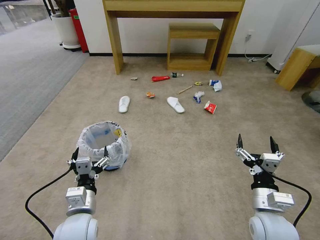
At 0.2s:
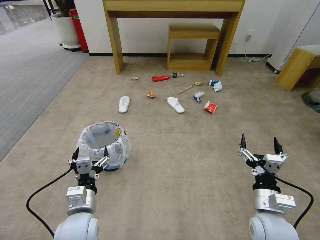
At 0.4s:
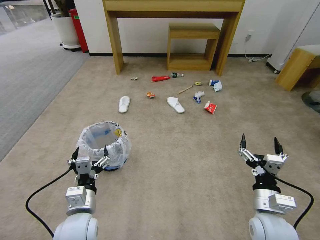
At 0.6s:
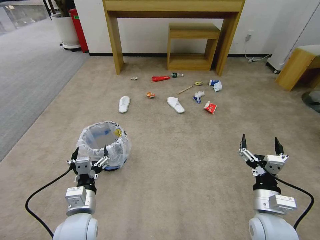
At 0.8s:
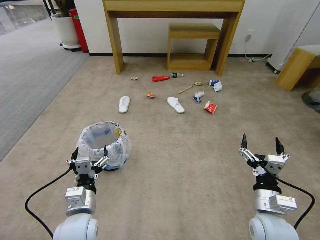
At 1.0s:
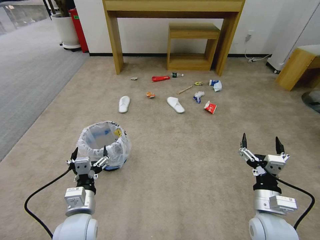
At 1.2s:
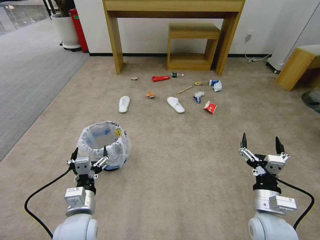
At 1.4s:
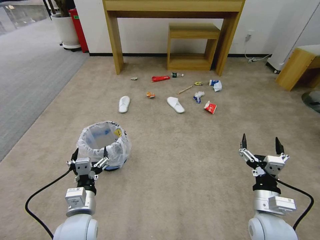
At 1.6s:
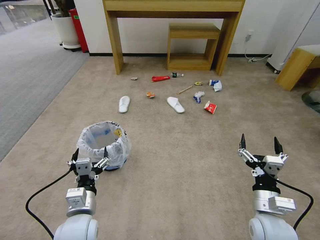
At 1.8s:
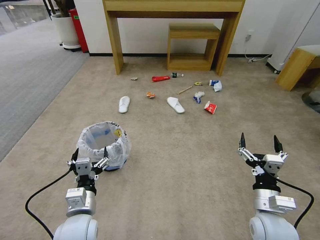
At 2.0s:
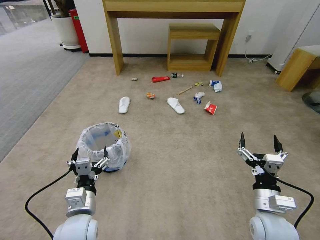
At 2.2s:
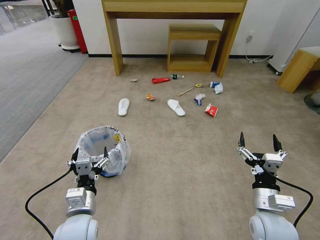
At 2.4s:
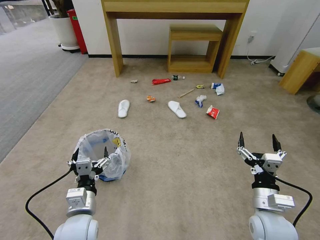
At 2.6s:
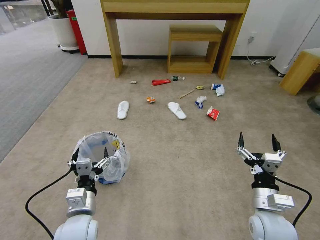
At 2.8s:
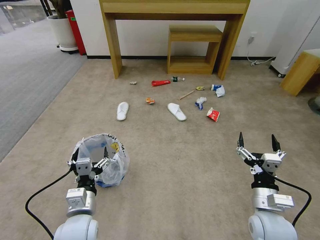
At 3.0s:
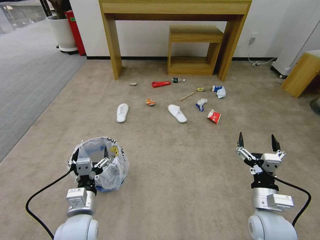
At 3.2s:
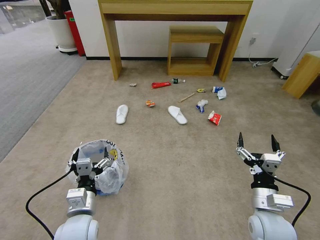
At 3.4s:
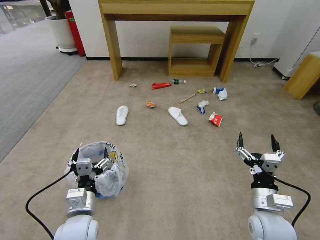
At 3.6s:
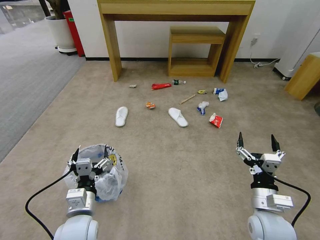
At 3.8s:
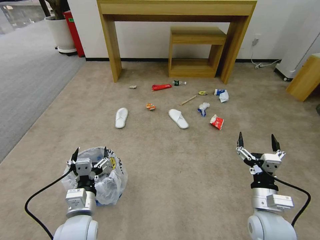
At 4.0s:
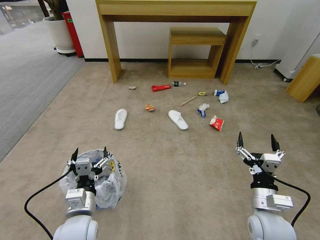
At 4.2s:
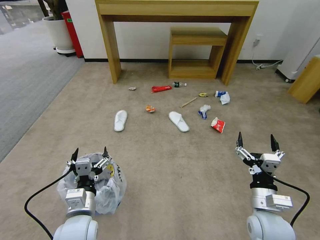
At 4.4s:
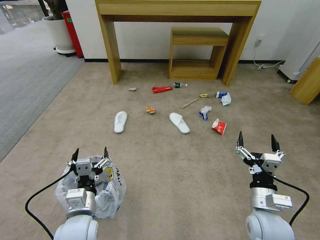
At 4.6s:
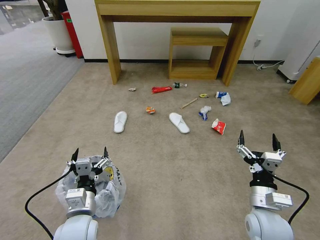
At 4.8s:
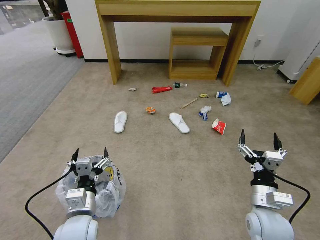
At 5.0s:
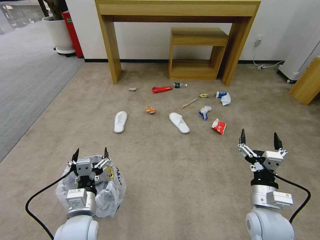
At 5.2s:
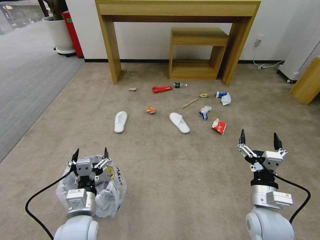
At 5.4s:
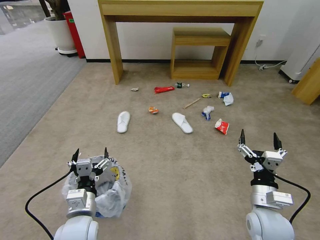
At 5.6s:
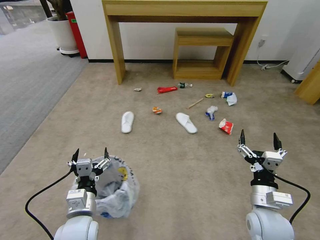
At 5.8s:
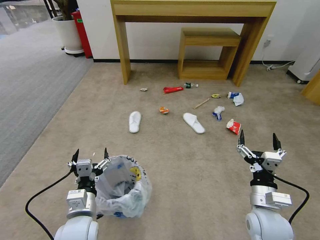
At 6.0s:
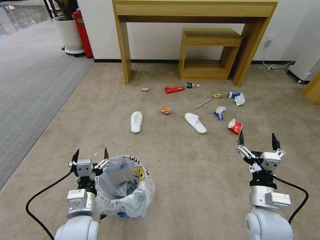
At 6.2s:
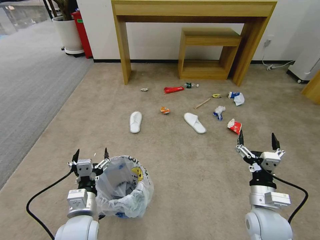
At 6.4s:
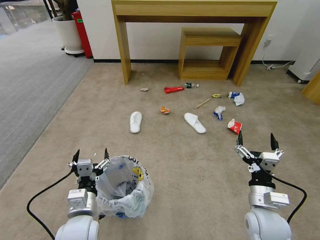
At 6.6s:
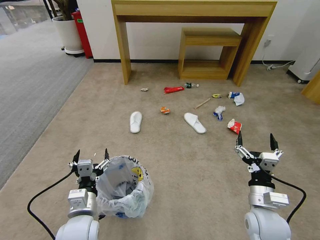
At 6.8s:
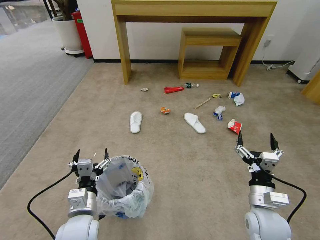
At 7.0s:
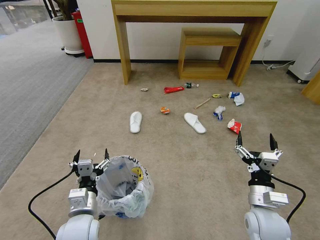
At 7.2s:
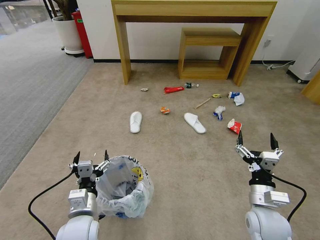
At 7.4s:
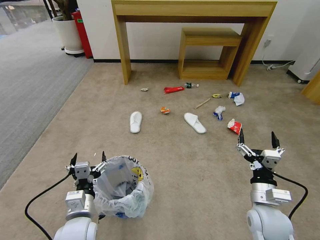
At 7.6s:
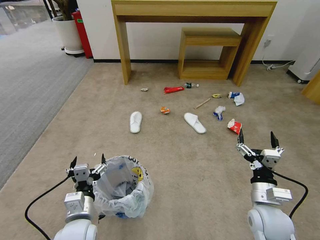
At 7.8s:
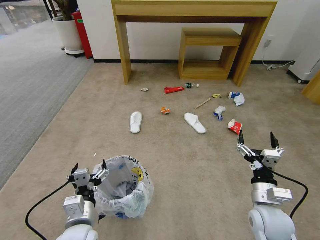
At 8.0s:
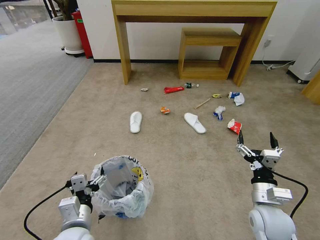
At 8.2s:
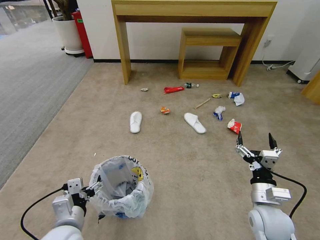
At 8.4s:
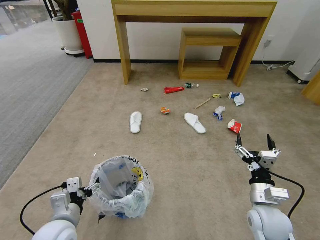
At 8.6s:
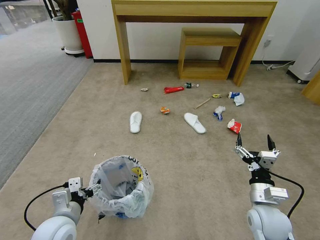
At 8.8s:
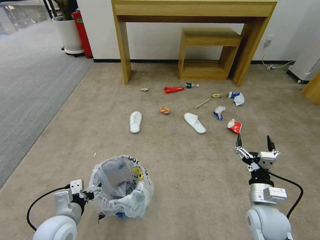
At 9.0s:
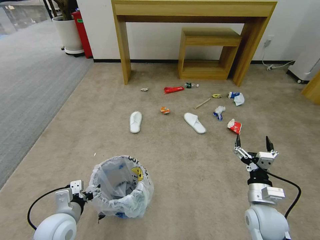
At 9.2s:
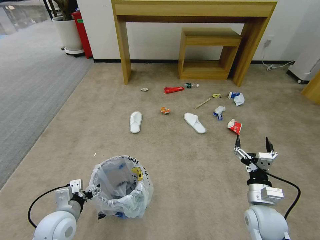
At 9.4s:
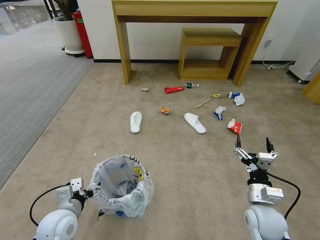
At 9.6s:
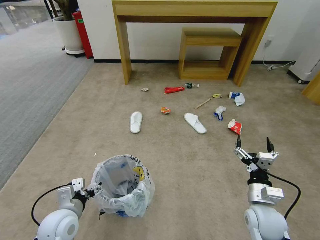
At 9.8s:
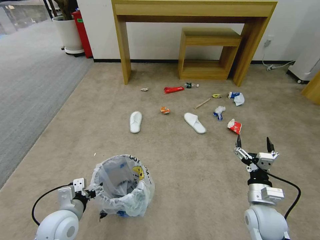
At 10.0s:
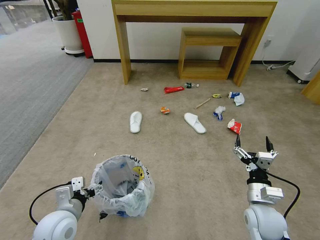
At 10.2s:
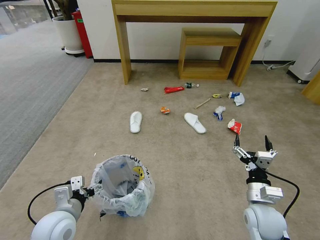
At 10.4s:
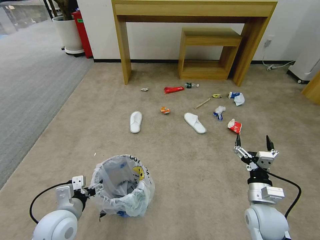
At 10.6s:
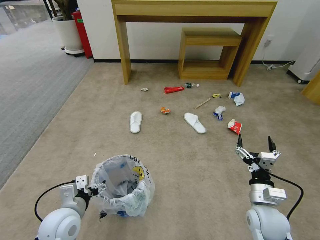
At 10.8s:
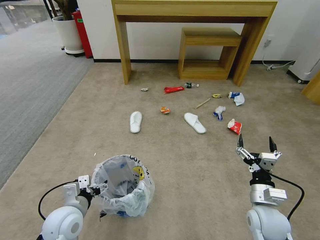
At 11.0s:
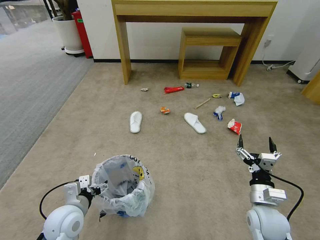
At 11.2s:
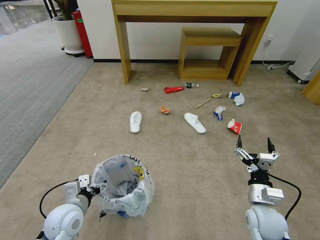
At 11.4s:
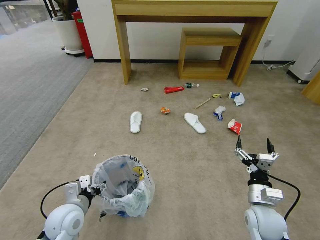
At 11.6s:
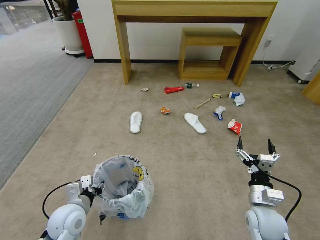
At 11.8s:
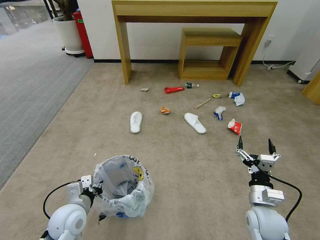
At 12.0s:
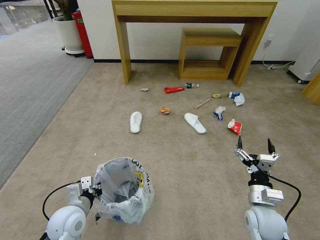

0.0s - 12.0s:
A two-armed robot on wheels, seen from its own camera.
Task of the whole recording: Pick up the trash bin and place the garbage on the floor into it.
1.6s - 4.4s: The two grippers keep their place.
4.4s - 6.0s: The two grippers keep their place.
6.0s - 7.6s: The grippers stay close to where they were, moving slightly.
7.6s - 9.0s: The left gripper is displaced to the left by roughly 5 cm.
9.0s - 10.4s: There are only small adjustments of the grippers.
10.4s - 12.0s: The left gripper closes.

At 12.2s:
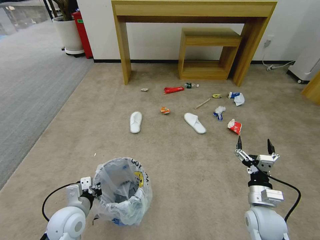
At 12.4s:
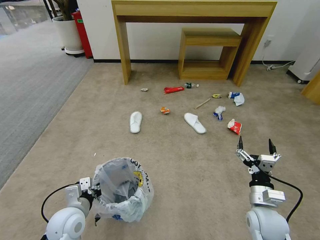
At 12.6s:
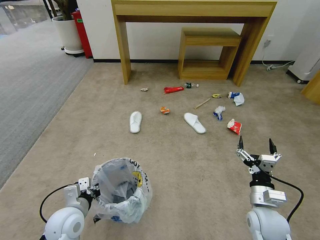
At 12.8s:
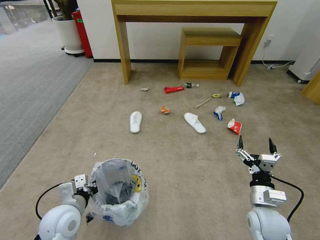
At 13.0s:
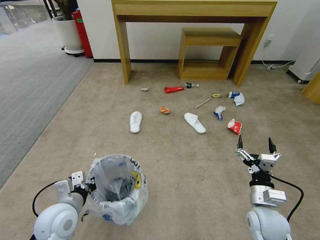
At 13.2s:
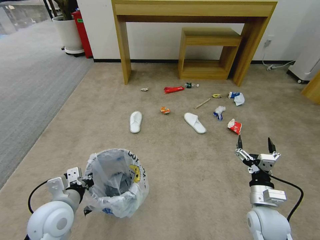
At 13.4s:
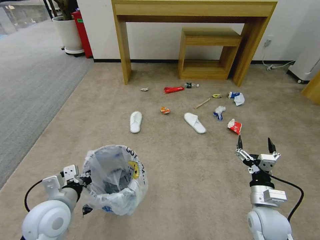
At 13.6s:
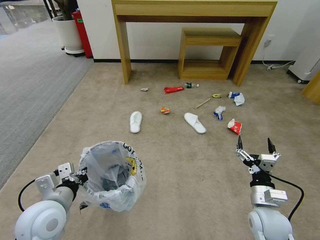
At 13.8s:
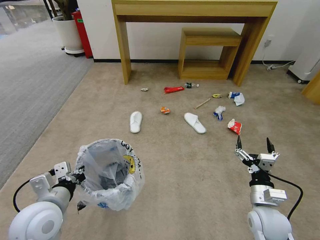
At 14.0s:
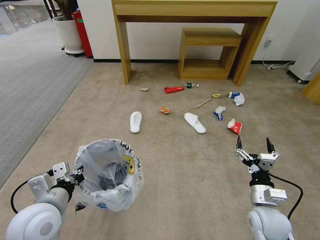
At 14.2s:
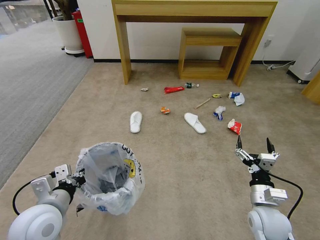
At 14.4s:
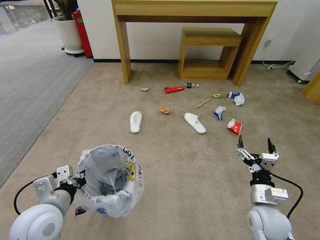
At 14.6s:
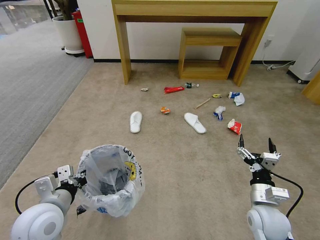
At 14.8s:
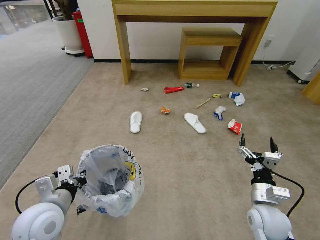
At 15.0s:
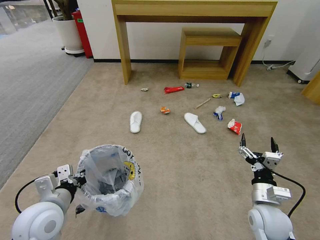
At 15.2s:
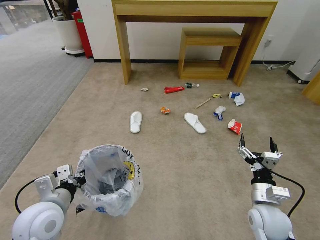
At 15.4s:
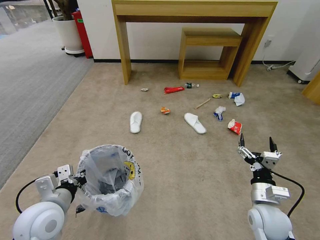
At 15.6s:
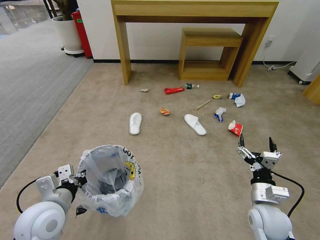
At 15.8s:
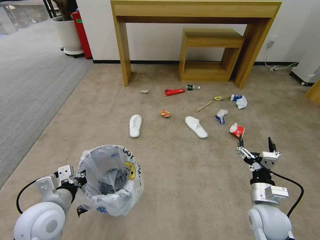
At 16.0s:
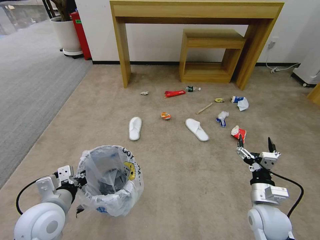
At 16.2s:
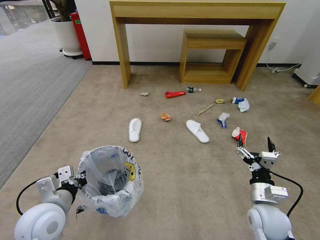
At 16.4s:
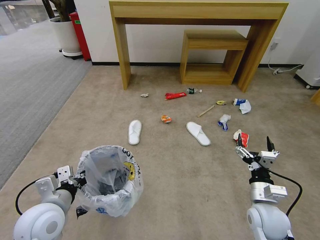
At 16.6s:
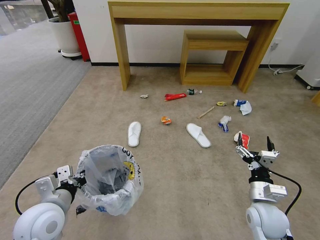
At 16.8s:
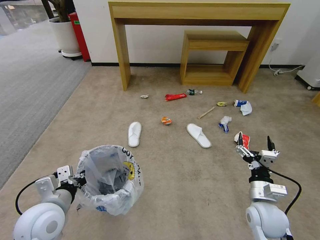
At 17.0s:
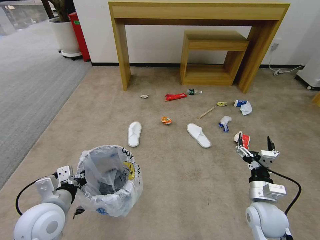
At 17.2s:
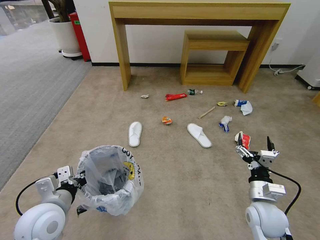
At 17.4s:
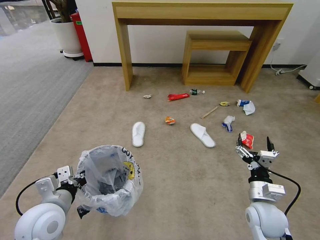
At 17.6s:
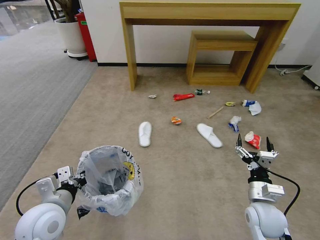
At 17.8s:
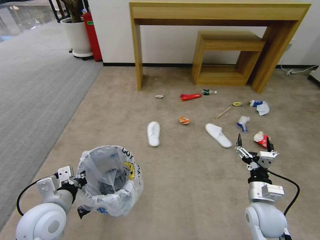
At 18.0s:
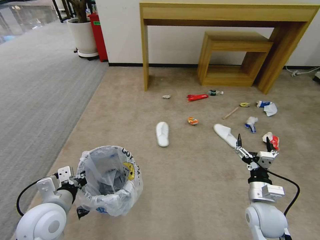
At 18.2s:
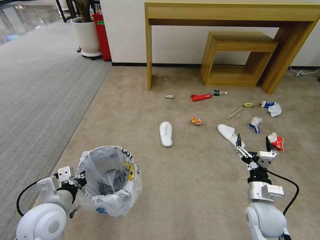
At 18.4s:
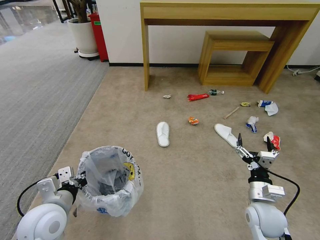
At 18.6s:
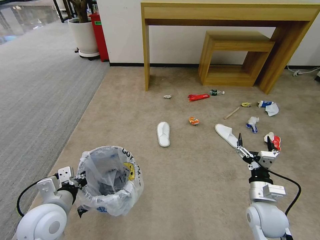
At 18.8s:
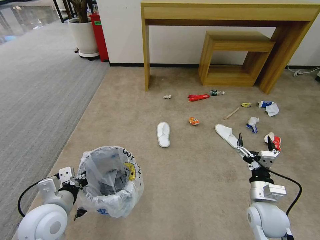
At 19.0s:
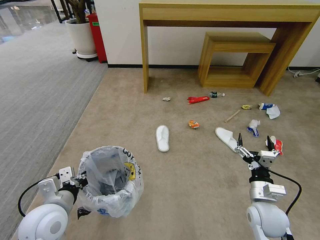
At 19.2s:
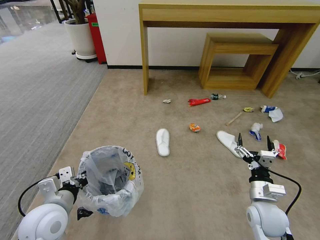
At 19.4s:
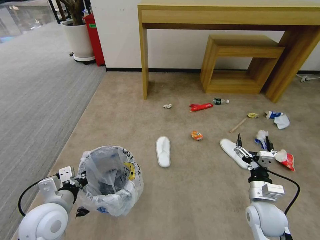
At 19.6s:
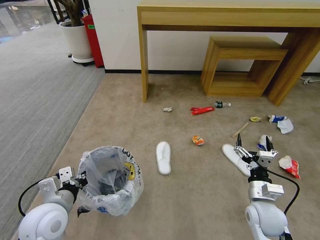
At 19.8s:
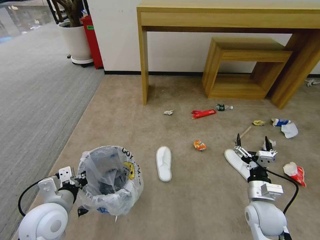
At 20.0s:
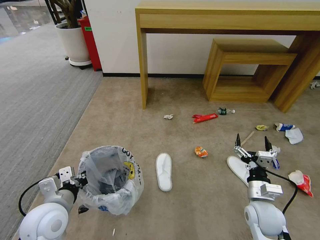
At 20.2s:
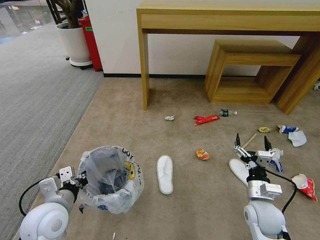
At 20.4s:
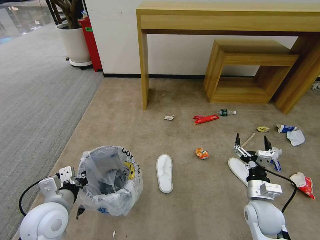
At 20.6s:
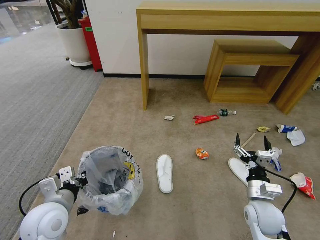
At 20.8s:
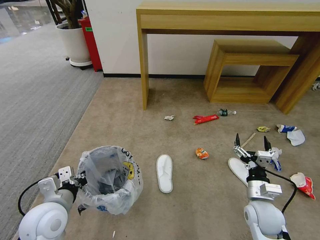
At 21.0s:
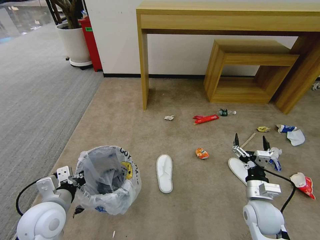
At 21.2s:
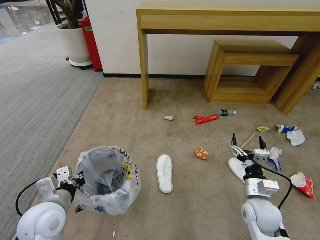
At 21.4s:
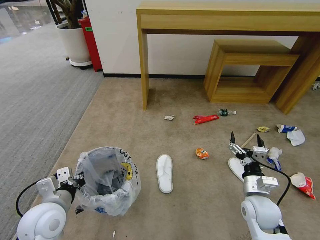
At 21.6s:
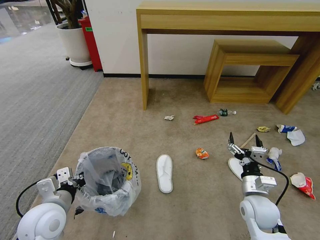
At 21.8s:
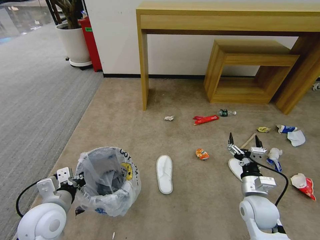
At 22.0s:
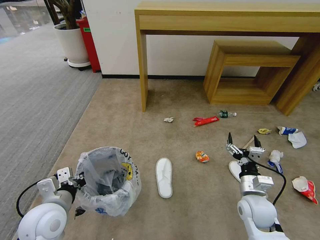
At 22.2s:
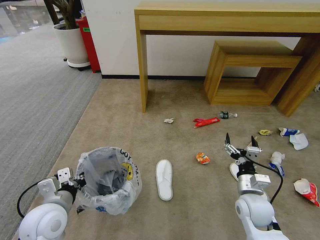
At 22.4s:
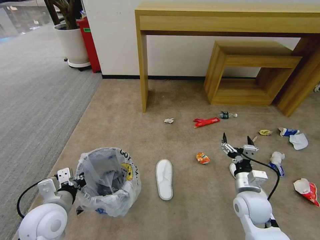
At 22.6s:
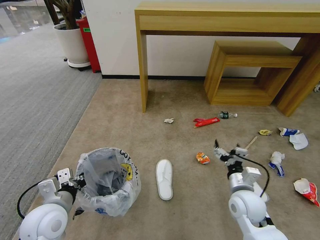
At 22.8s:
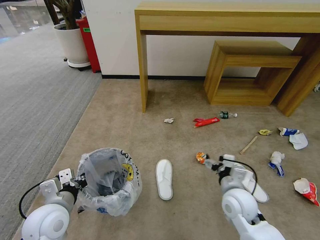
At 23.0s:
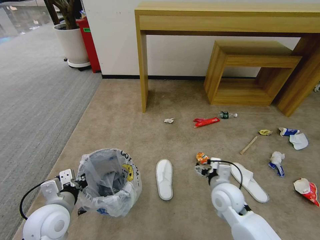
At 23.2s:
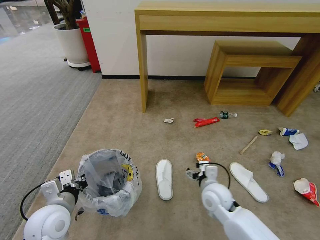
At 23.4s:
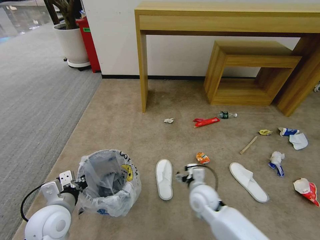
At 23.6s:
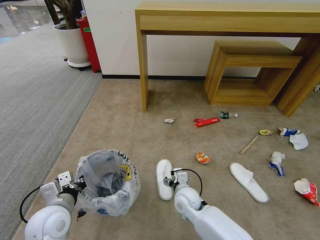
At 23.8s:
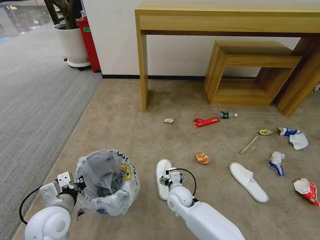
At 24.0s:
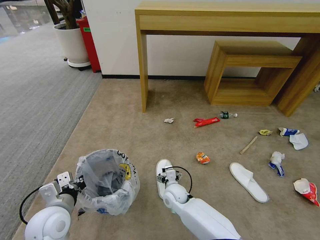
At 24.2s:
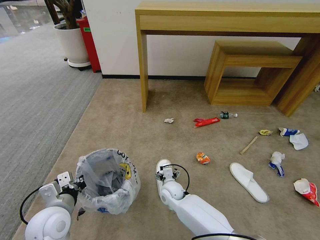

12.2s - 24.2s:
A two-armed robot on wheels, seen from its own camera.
Task of the whole recording: Pick up the trash bin and place the garbage on the floor into it.
12.2s - 13.8s: The left gripper shifts some 10 cm upward.
13.8s - 15.2s: The grippers make only small movements.
15.2s - 16.6s: Both grippers stay put.
19.8s - 21.2s: The two grippers keep their place.
21.2s - 22.6s: There are only small adjustments of the grippers.
22.6s - 24.2s: The right gripper heads to the left, downward and forward, covering approximately 30 cm.
